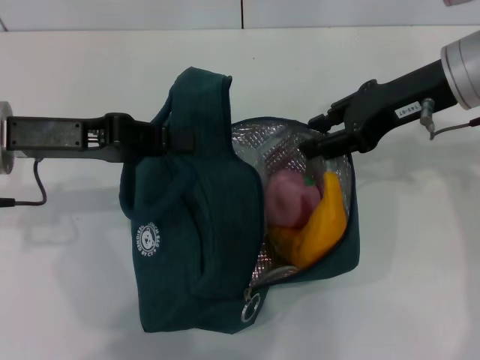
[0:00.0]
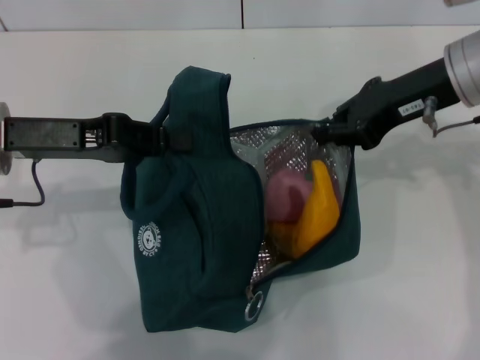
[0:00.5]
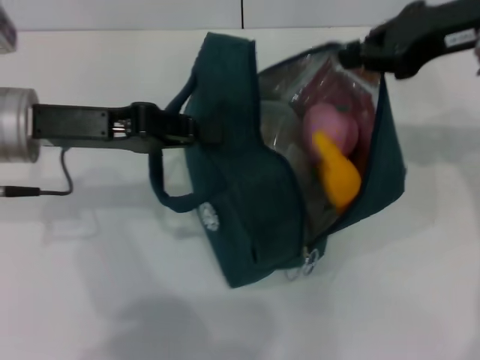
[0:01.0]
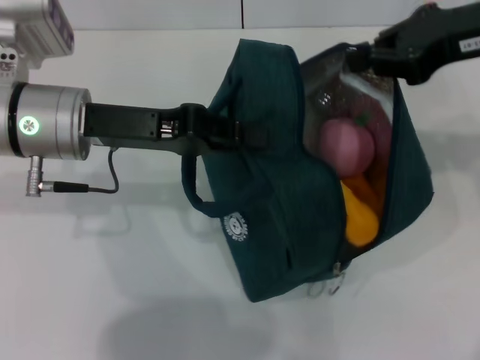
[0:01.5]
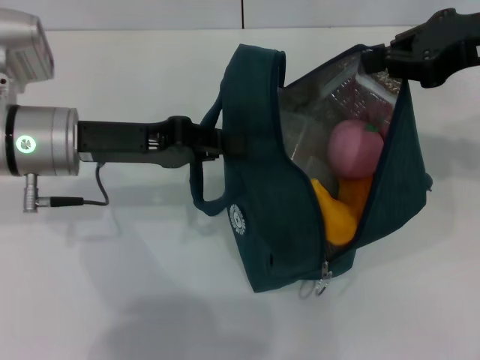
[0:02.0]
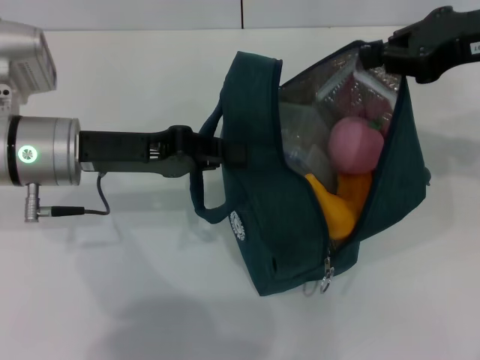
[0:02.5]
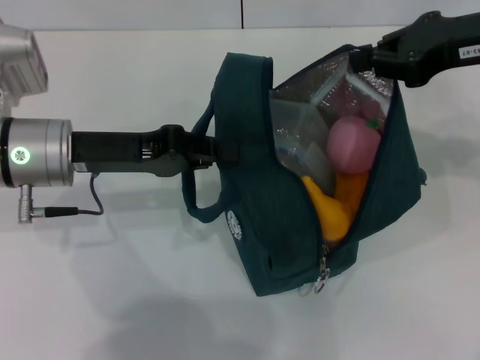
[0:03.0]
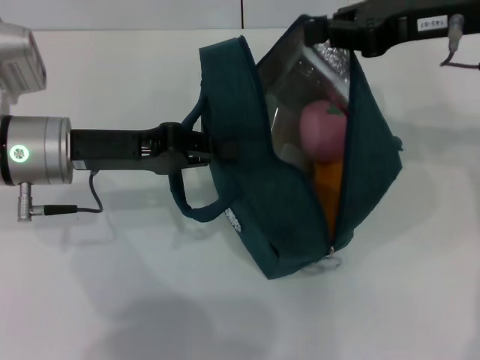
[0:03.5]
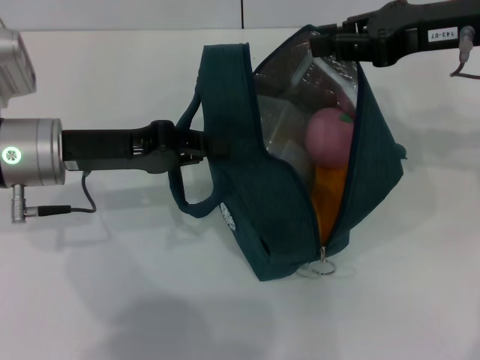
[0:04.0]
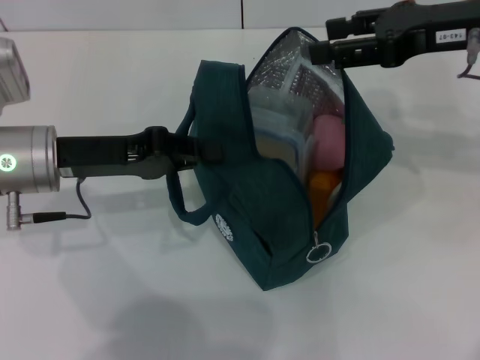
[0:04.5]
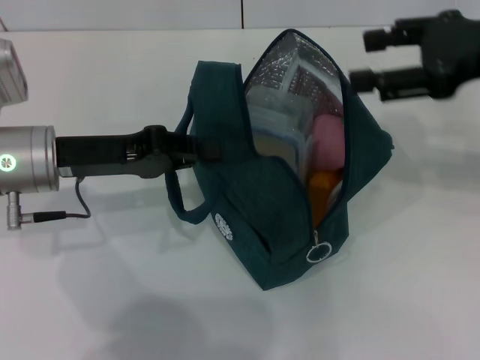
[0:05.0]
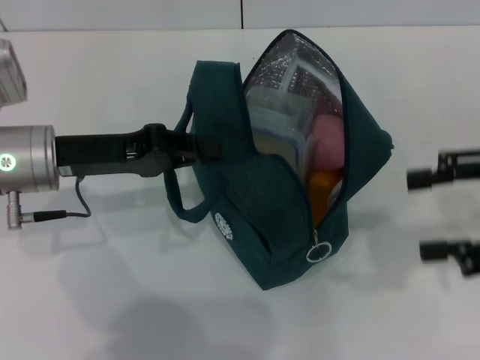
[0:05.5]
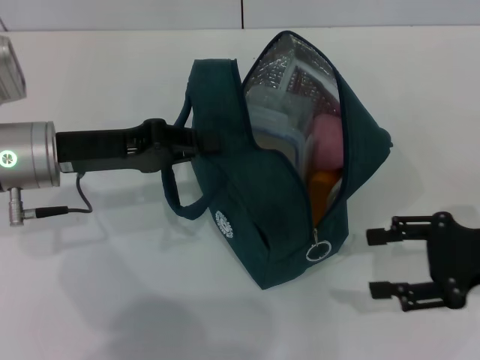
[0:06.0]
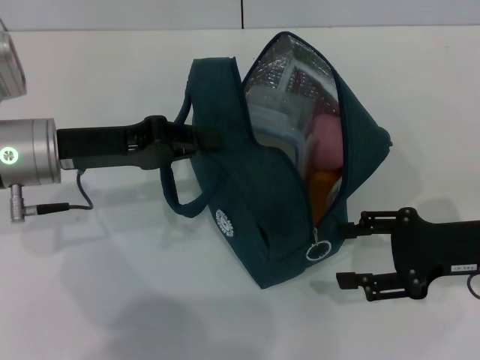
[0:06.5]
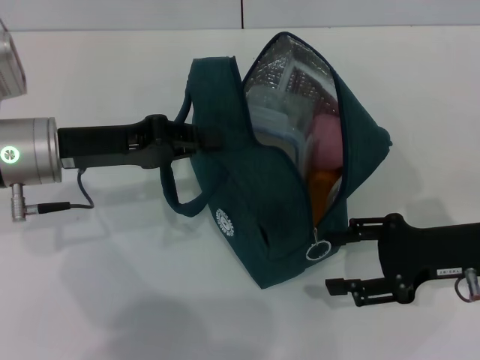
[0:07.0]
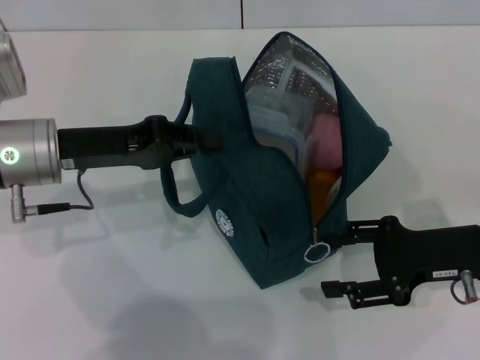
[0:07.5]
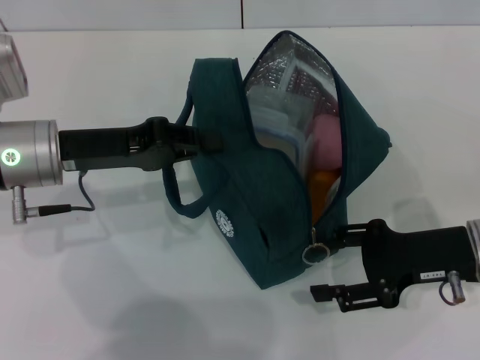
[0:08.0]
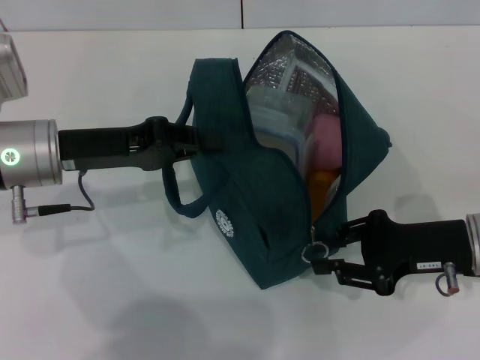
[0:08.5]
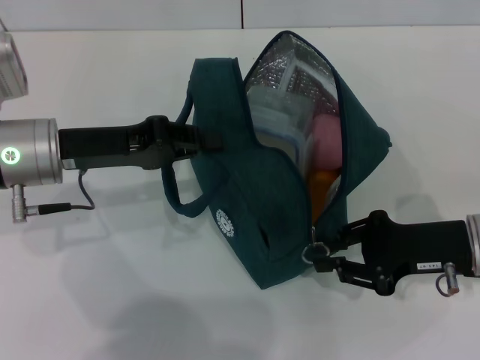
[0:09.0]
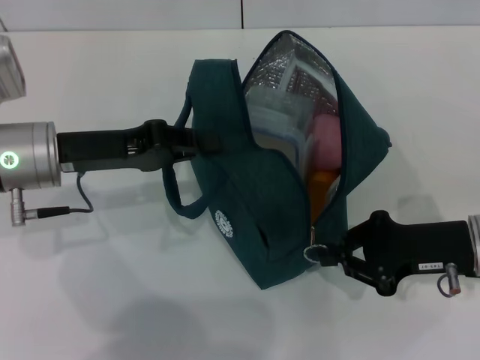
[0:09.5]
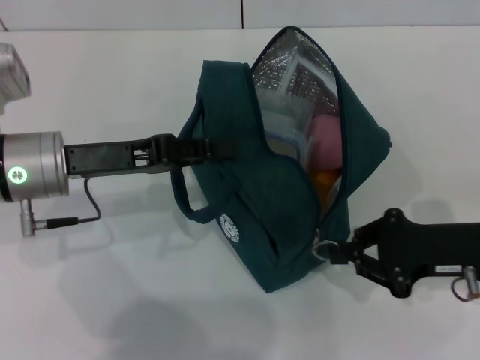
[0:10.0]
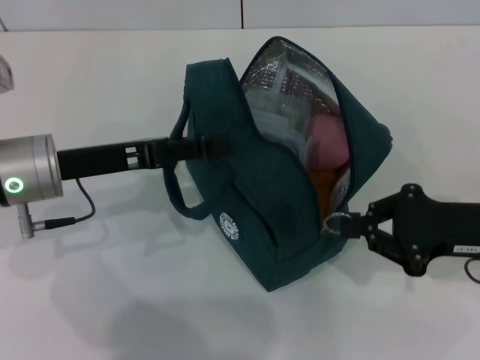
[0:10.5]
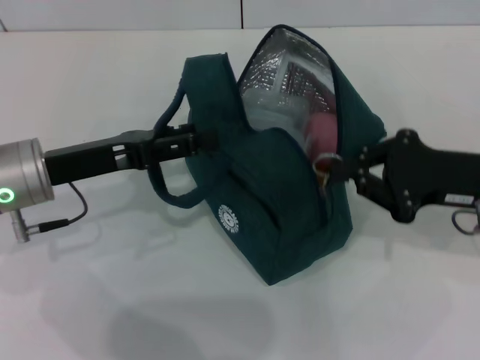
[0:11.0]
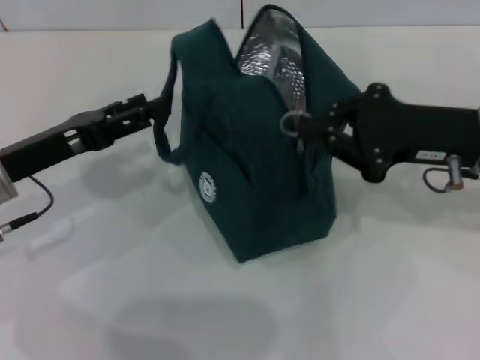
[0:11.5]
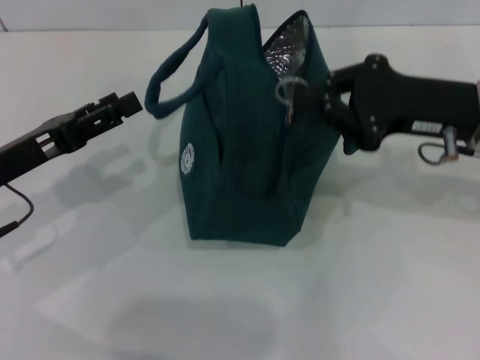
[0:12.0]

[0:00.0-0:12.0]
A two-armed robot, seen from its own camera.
Step, 0:00.0 to 0:04.0: Hold the lunch bag with your right hand.
0:00.0 to 0:02.0: The right gripper shifts some 5 cm to the right, and closes up. Meanwhile the left gripper changes place by some 5 cm.
0:04.0 to 0:06.0: The right gripper moves downward, backward and to the right, approximately 20 cm, and opens.
0:06.0 to 0:08.0: The right gripper travels to the left by about 5 cm.
0:08.0 to 0:10.0: The right gripper closes its fingers.
0:10.0 to 0:12.0: The left gripper heads to the left, covering some 5 cm, and opens. Meanwhile the right gripper is displaced upward and forward by roughly 10 cm.

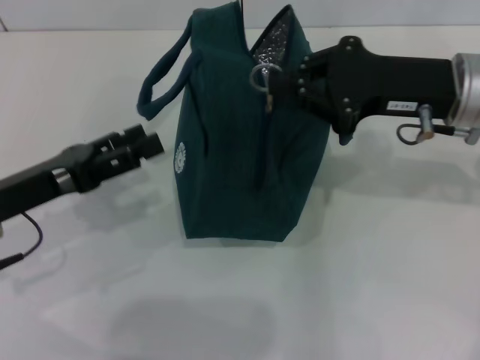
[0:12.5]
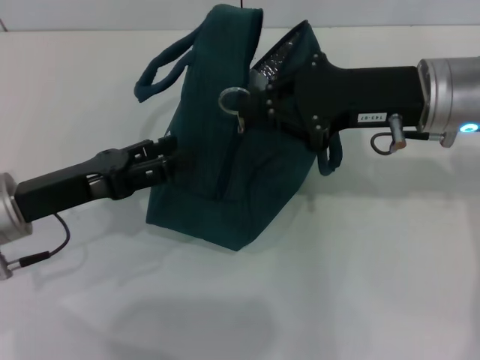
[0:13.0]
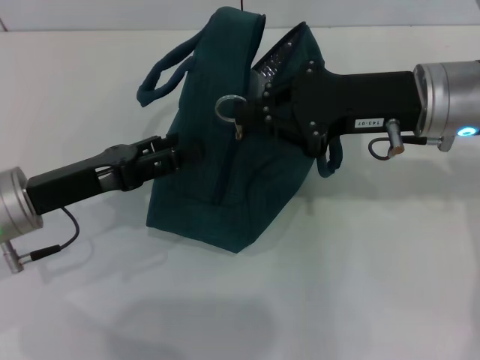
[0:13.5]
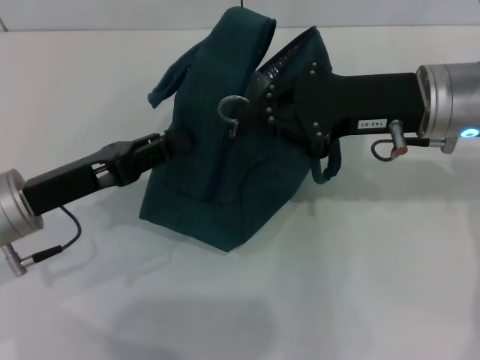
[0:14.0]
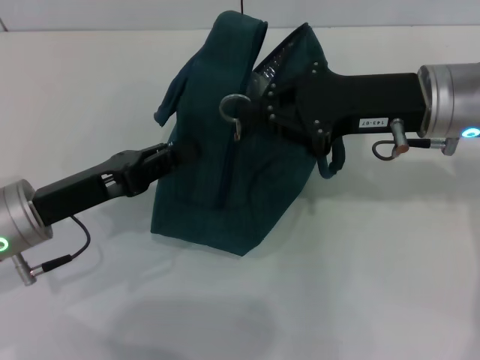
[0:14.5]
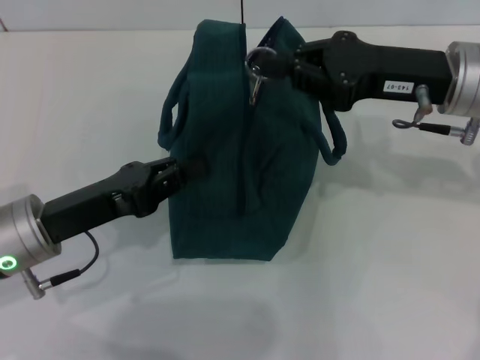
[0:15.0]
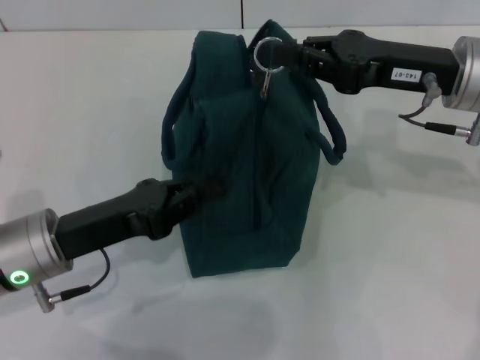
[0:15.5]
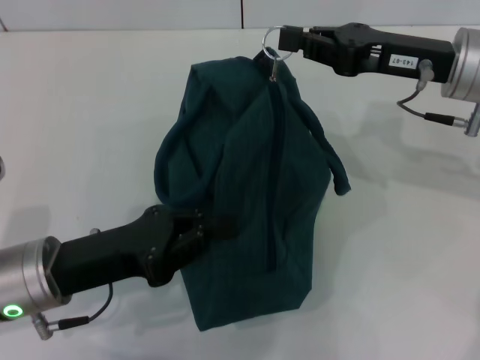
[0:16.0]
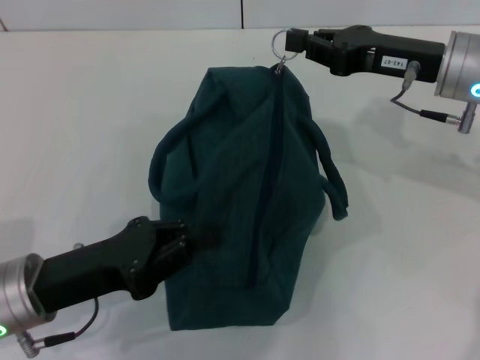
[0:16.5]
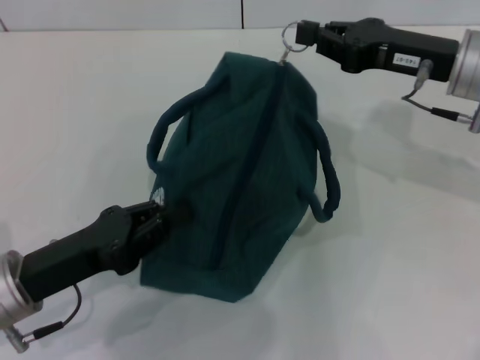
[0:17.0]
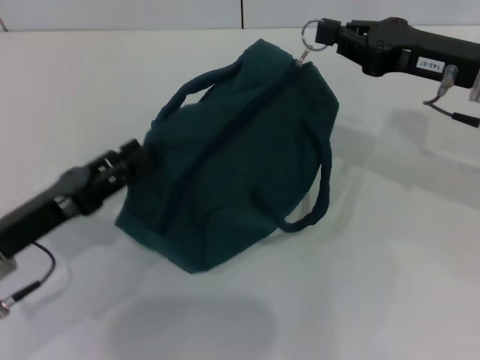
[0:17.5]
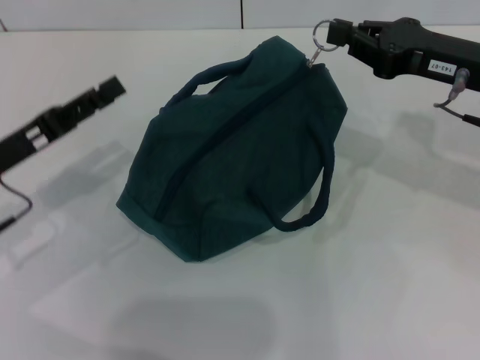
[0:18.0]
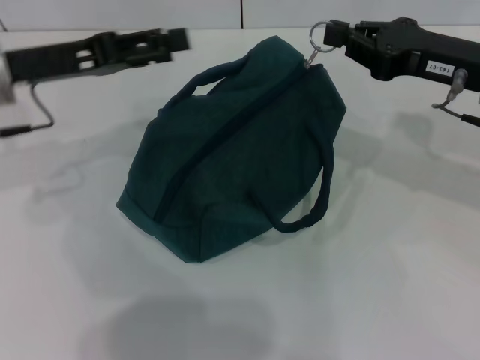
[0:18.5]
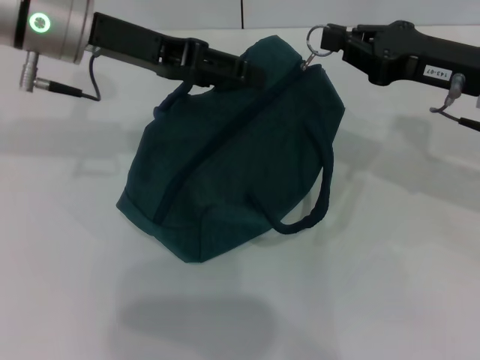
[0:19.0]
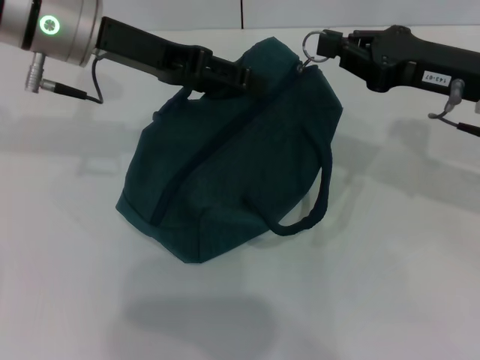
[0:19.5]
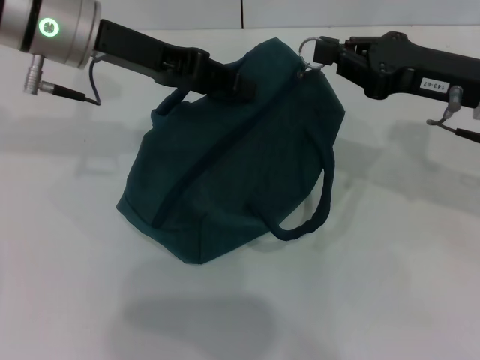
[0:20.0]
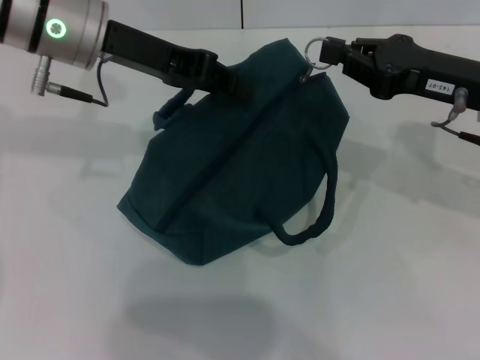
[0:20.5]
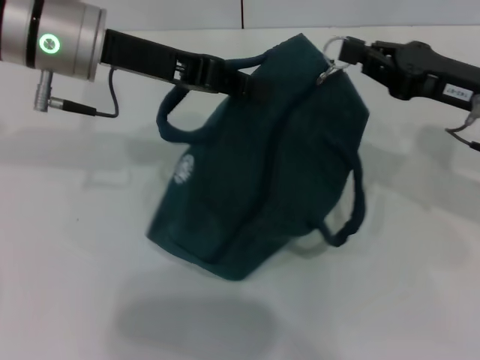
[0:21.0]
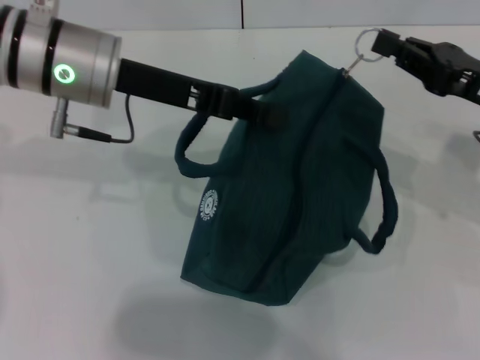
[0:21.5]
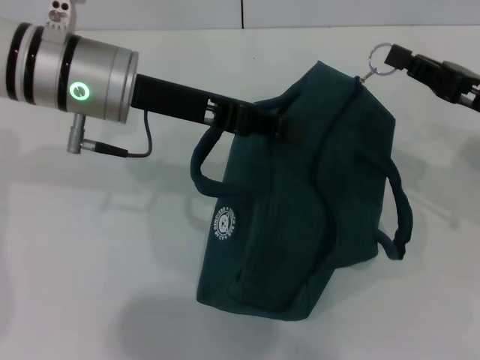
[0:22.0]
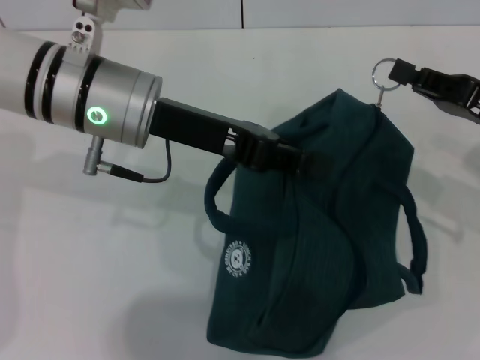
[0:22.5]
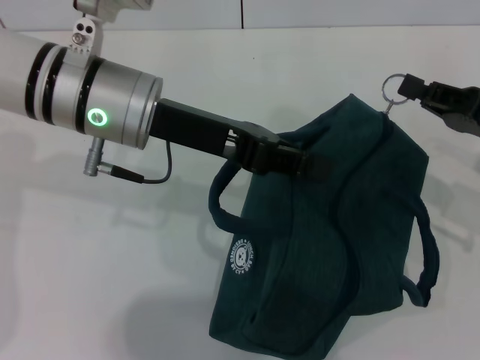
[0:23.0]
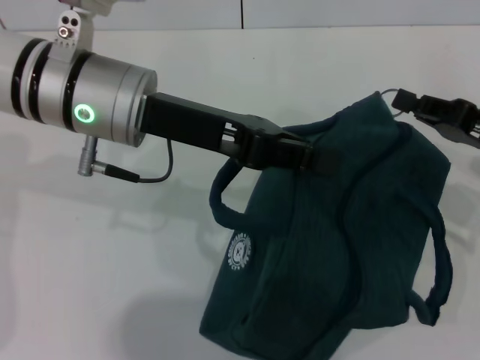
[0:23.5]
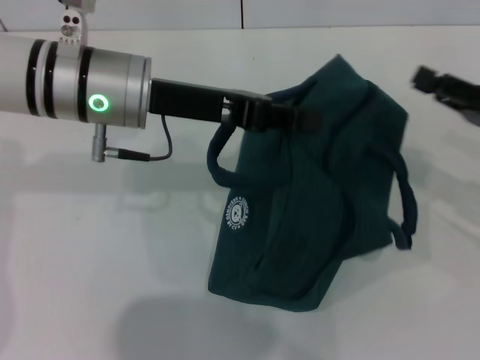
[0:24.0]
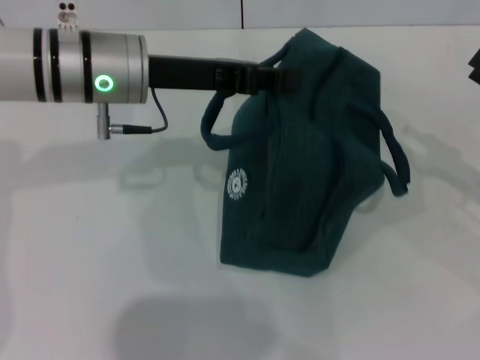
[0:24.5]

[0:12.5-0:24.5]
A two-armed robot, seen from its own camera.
Step, 0:12.5 to 0:23.5: Zip up the lunch bag with your right hand.
0:12.5 to 0:14.5: The left gripper closes.
0:14.5 to 0:16.5: The left gripper is displaced backward by some 5 cm.
0:16.5 to 0:18.5: The left gripper heads forward and upward, covering about 20 cm, and opens.
0:18.5 to 0:20.5: The left gripper moves to the right, approximately 10 cm, and closes up.
0:20.5 to 0:22.5: The left gripper is displaced backward by about 5 cm. Meanwhile the right gripper shifts approximately 5 cm to the right.
0:22.5 to 0:24.5: The right gripper travels to the right by some 5 cm, and opens.

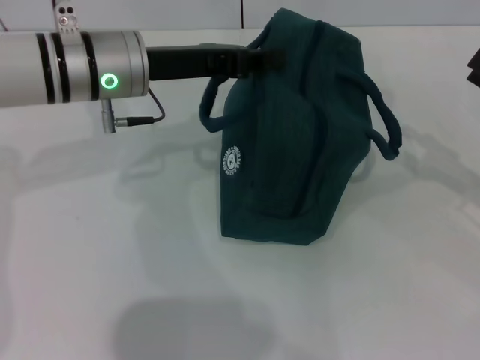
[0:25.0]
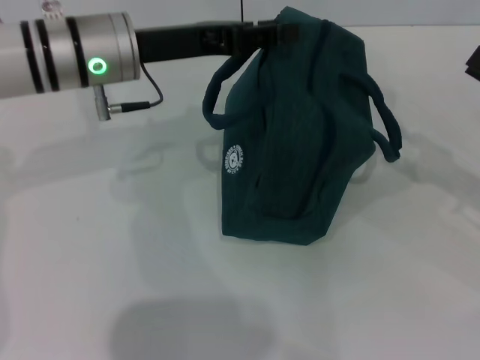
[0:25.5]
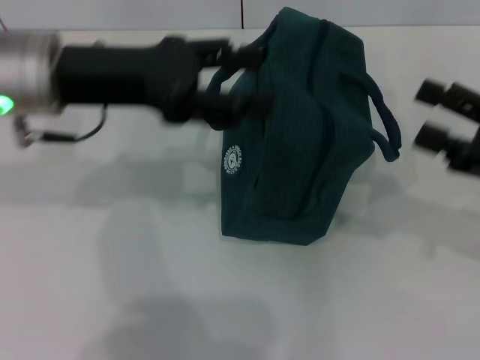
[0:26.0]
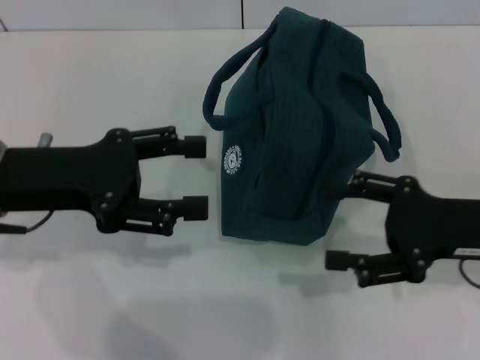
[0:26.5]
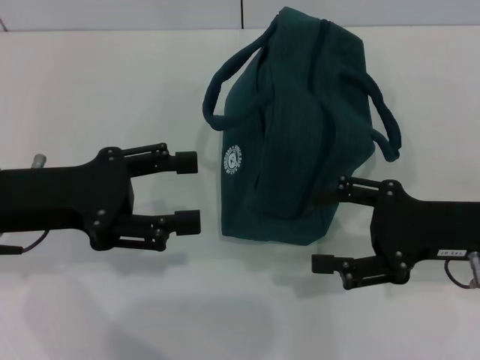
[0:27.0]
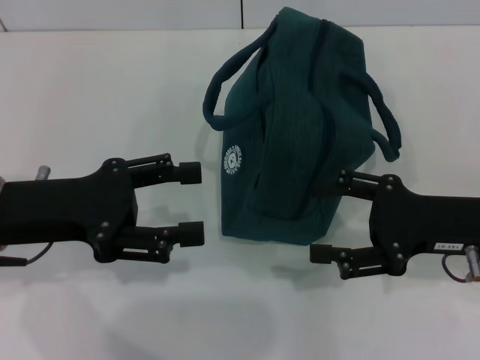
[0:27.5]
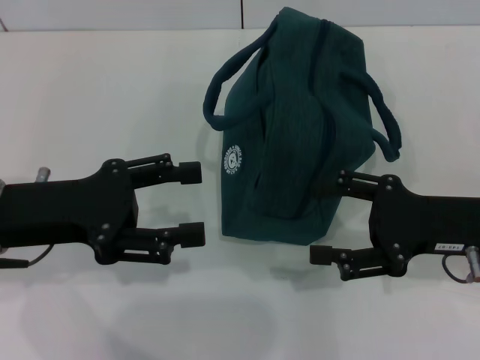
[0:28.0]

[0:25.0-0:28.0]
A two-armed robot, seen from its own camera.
0:25.0 to 0:26.5: The right gripper heads to the left, covering about 10 cm. Meanwhile the left gripper travels backward and to the left by approximately 15 cm, and opens.
0:26.5 to 0:28.0: The grippers move only a little.
